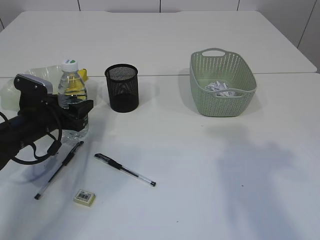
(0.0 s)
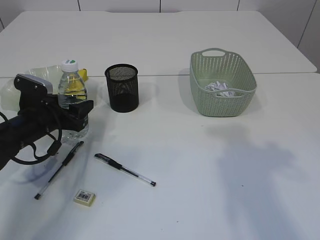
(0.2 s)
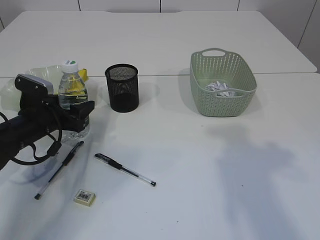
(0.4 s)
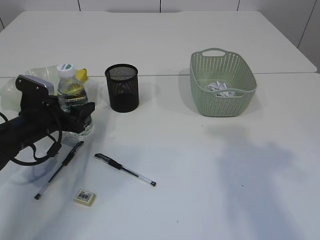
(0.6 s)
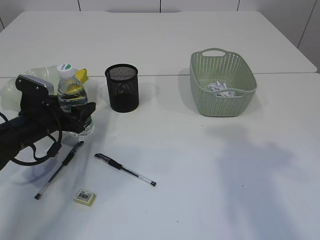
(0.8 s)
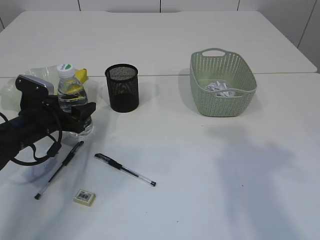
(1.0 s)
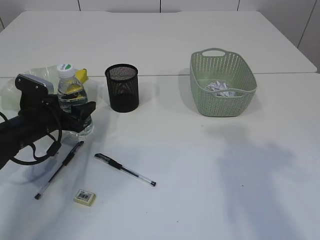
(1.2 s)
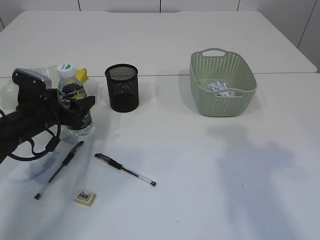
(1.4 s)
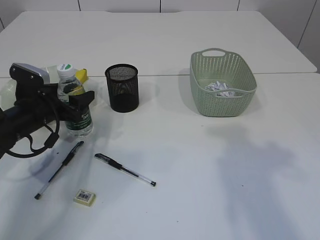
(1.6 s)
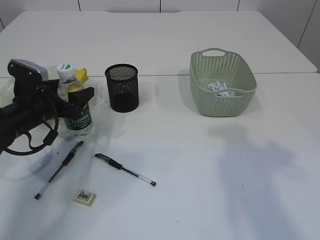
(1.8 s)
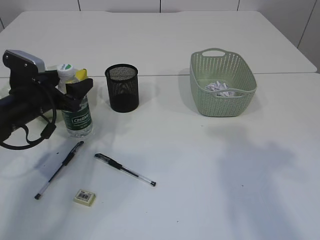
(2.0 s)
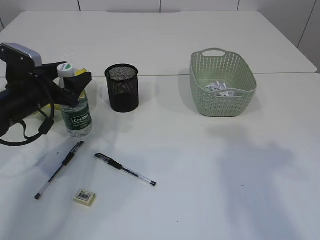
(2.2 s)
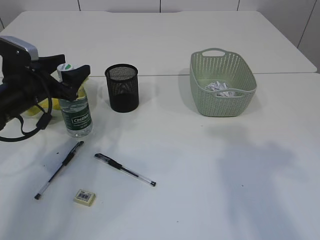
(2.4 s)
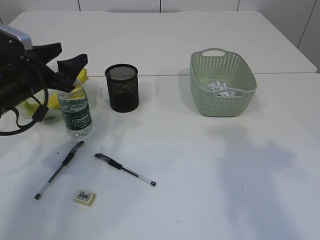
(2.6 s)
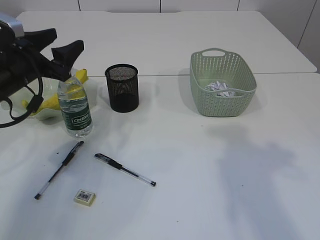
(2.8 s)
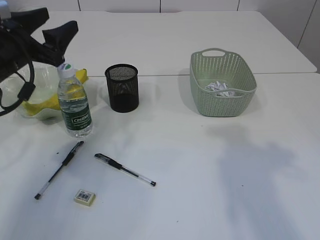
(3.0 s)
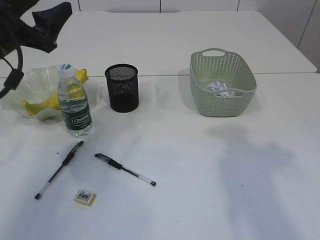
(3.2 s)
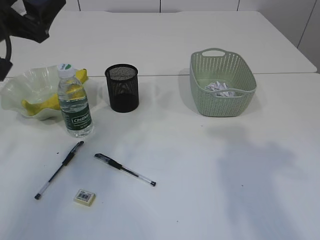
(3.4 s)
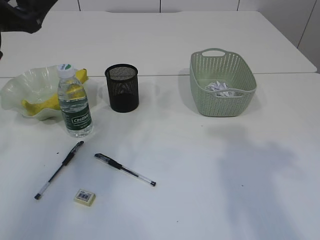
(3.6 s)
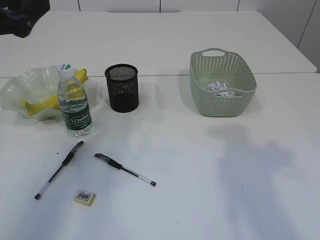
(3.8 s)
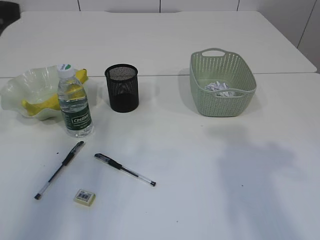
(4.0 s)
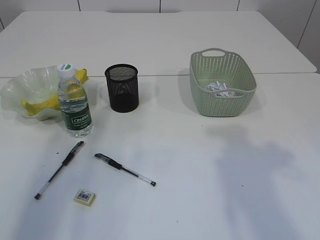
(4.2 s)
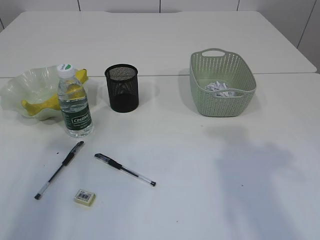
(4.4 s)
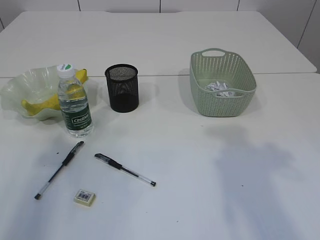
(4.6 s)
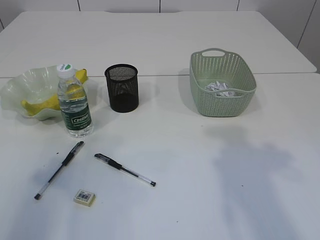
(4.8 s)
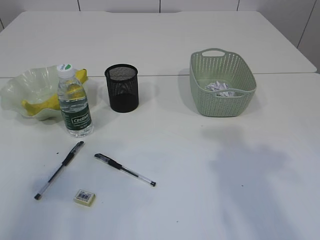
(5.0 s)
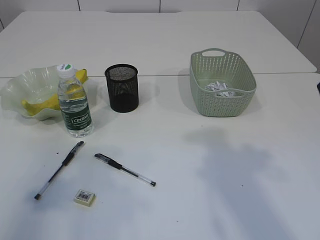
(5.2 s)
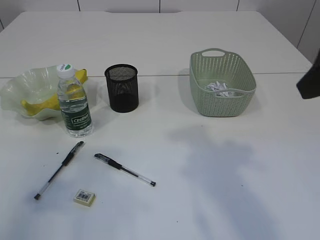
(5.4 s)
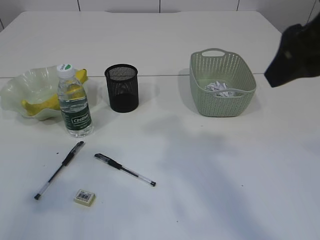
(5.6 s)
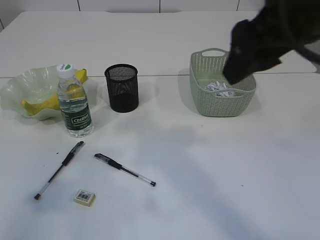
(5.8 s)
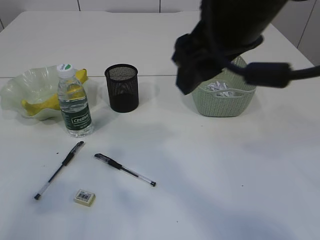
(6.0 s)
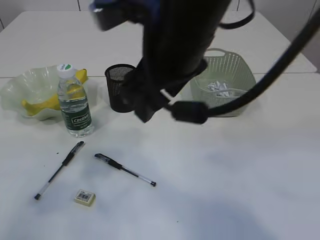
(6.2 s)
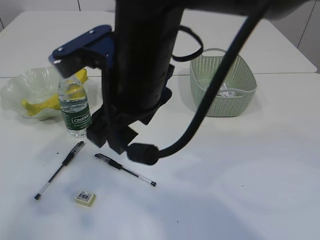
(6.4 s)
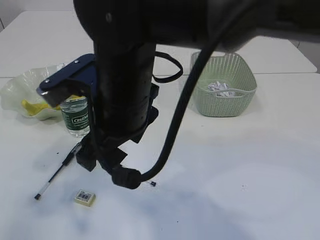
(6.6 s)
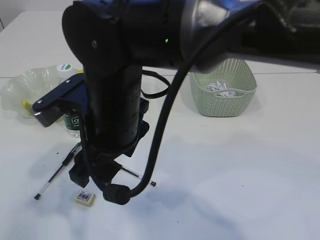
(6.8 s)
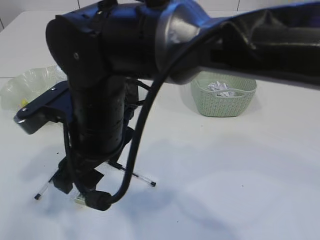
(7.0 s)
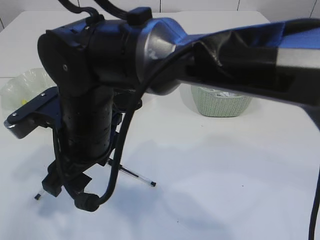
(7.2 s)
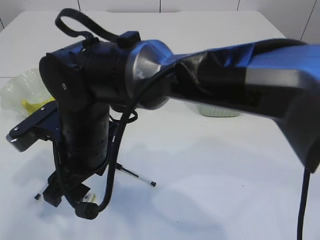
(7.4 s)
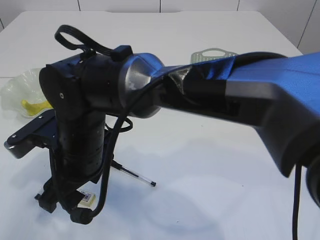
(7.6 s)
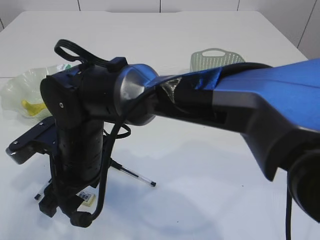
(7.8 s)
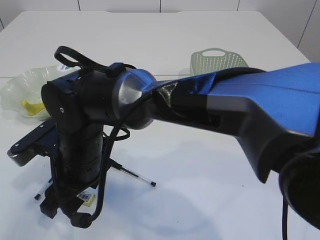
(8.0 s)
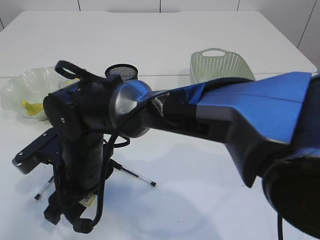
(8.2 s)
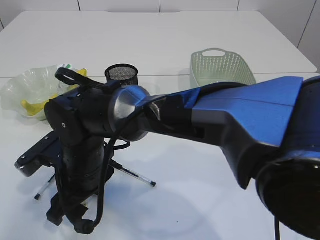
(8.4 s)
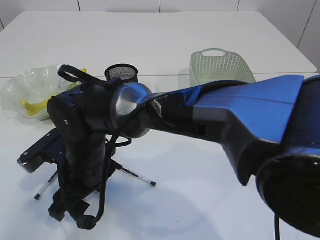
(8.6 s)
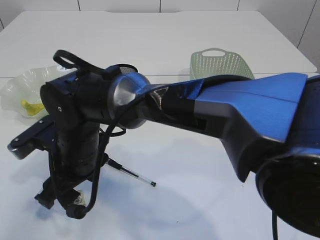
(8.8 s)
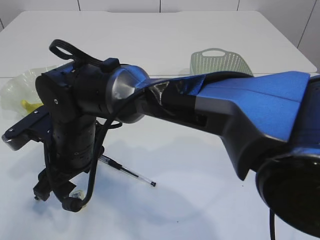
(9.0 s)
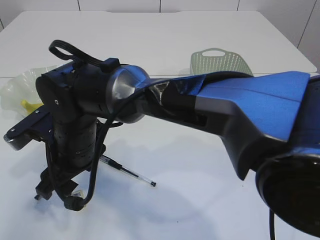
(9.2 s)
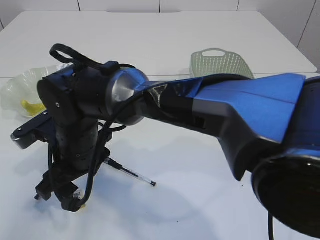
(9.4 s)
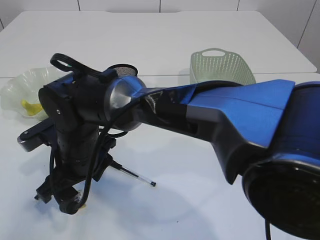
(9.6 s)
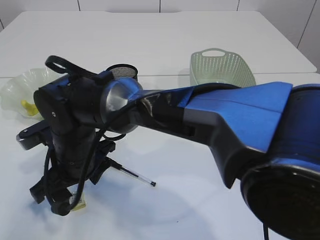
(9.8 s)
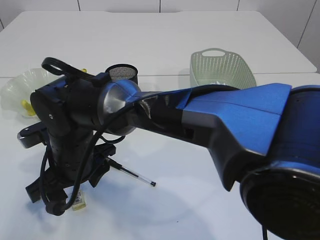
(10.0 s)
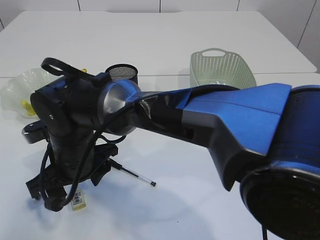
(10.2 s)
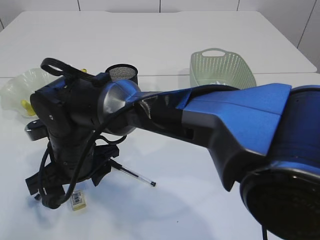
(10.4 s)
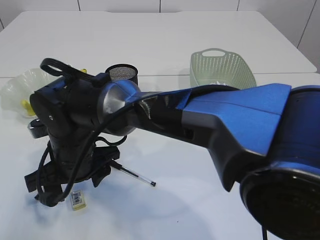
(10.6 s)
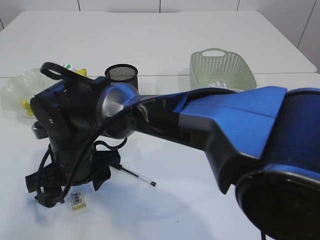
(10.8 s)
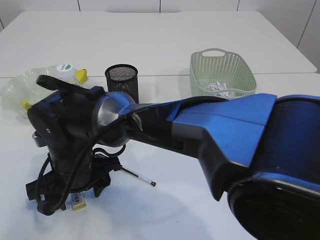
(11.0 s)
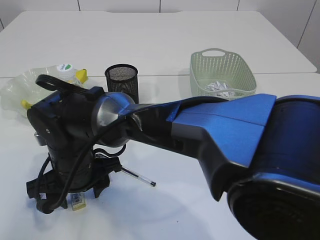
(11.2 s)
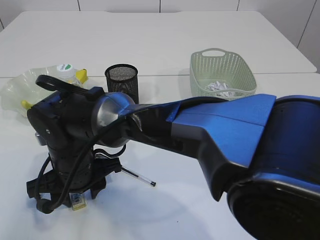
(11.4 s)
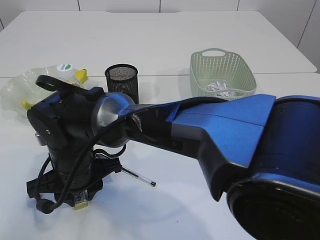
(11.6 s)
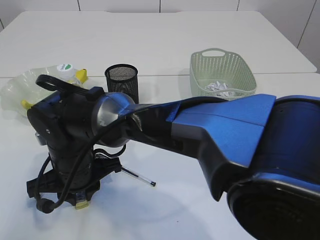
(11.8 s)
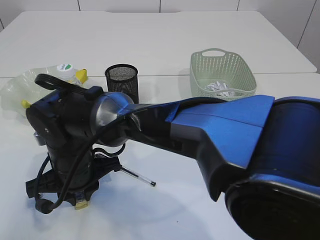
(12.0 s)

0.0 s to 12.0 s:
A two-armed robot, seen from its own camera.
Step, 0.0 to 2.6 s: Place the bottle.
0.0 to 1.6 s: The grippers make only small movements.
1.6 to 3.0 s: The left gripper travels upward by roughly 15 cm.
3.0 to 4.4 s: The left gripper heads backward, upward and to the left, covering about 20 cm.
4.4 to 6.0 s: The left gripper heads backward, covering approximately 5 cm. The right gripper shifts roughly 20 cm to the left.
6.0 to 7.6 s: The right gripper moves to the left and downward, approximately 25 cm.
10.4 to 12.0 s: The right gripper closes its fingers.

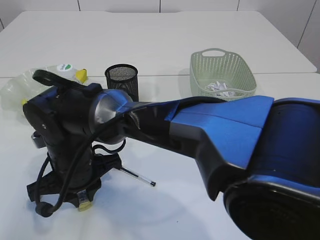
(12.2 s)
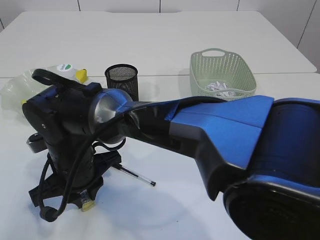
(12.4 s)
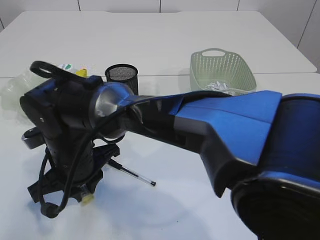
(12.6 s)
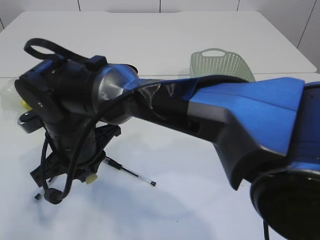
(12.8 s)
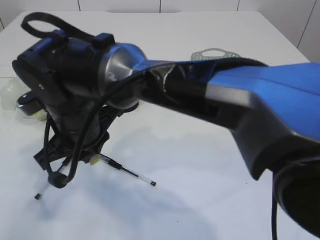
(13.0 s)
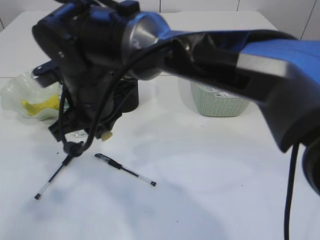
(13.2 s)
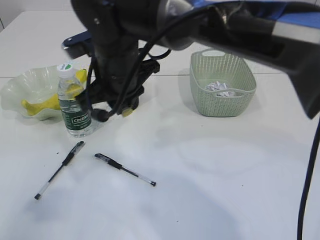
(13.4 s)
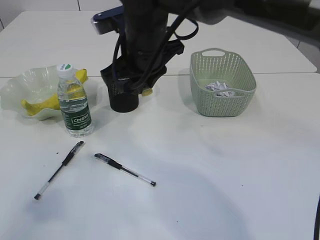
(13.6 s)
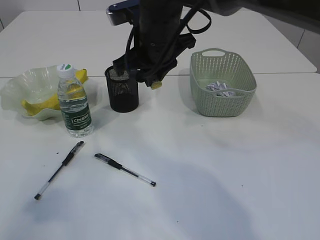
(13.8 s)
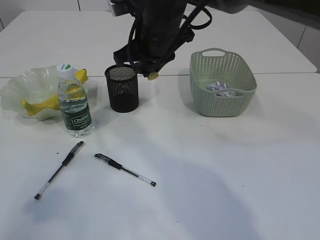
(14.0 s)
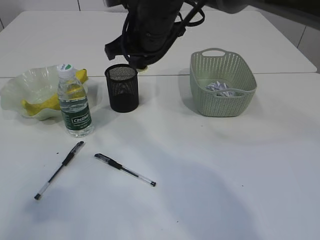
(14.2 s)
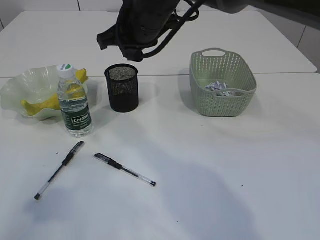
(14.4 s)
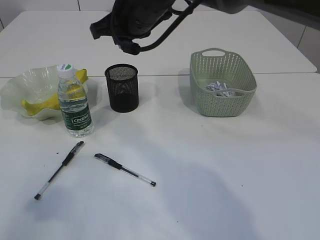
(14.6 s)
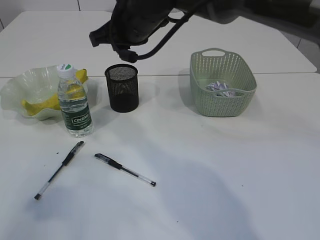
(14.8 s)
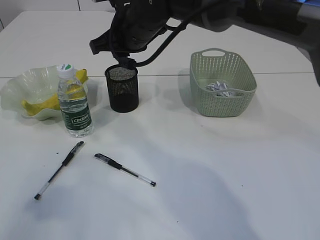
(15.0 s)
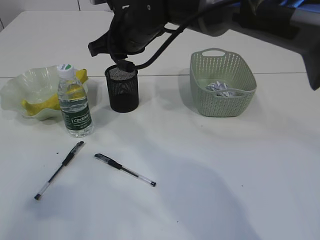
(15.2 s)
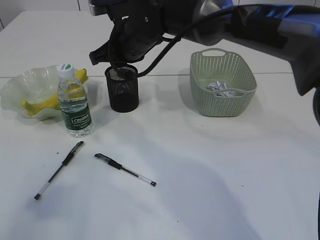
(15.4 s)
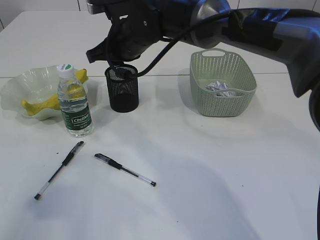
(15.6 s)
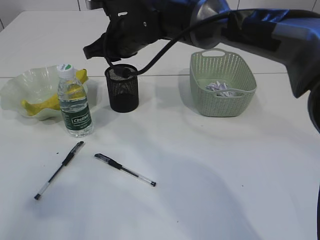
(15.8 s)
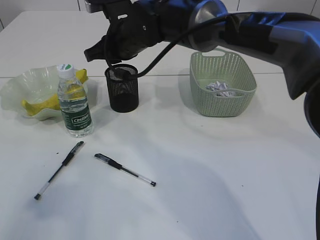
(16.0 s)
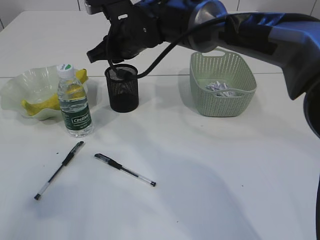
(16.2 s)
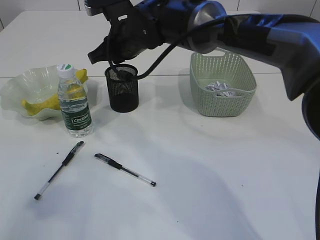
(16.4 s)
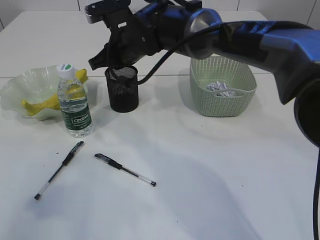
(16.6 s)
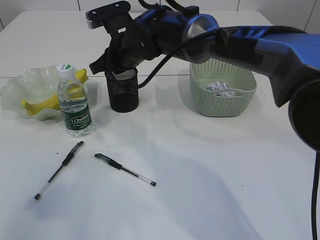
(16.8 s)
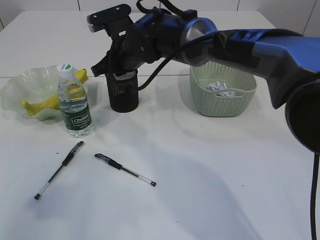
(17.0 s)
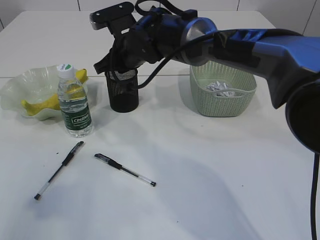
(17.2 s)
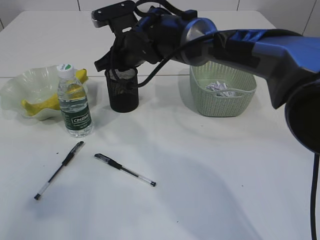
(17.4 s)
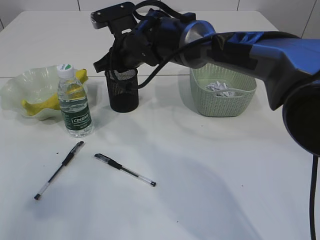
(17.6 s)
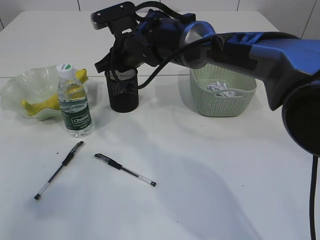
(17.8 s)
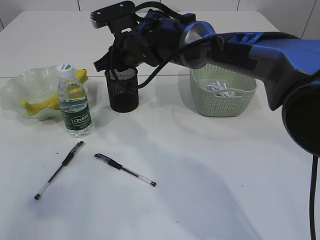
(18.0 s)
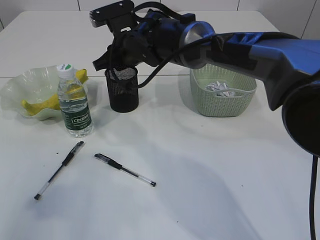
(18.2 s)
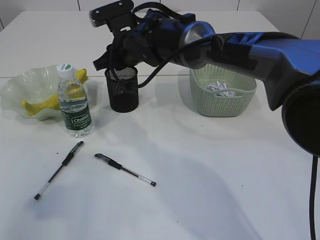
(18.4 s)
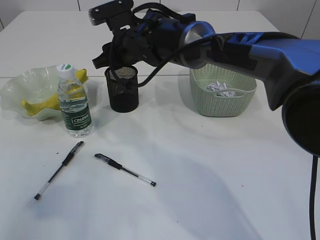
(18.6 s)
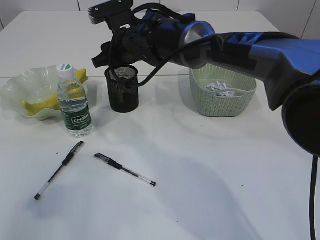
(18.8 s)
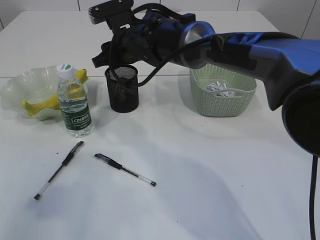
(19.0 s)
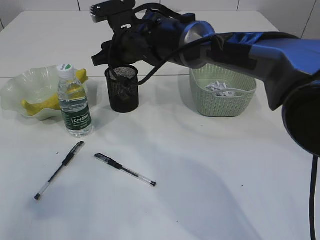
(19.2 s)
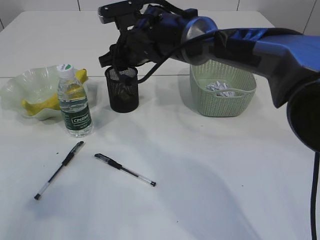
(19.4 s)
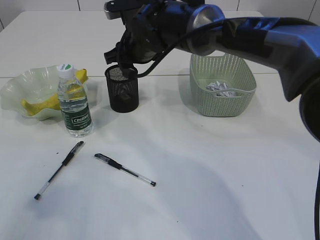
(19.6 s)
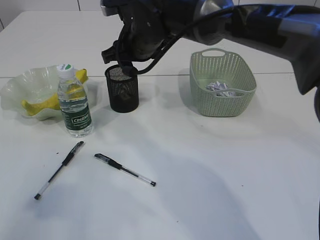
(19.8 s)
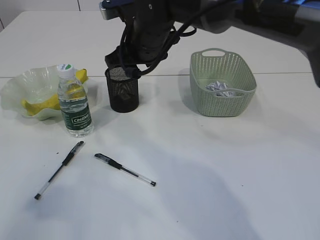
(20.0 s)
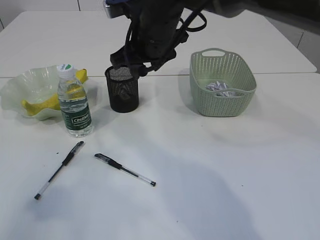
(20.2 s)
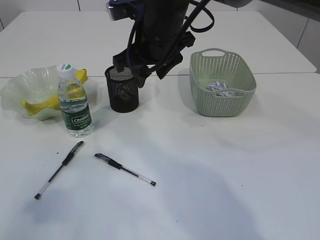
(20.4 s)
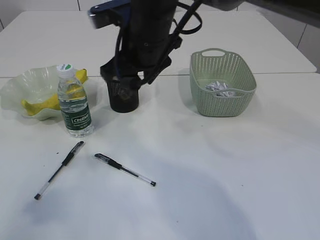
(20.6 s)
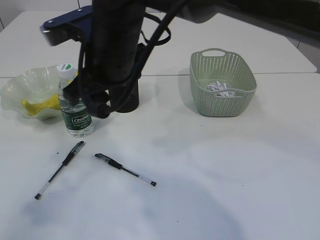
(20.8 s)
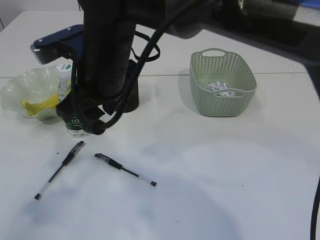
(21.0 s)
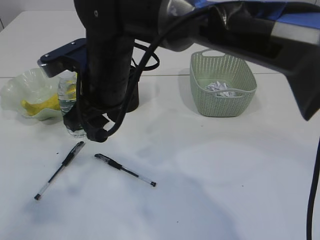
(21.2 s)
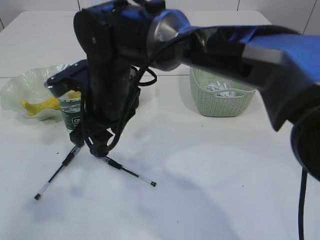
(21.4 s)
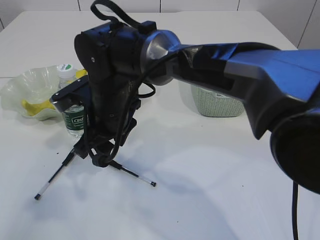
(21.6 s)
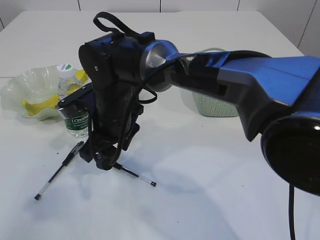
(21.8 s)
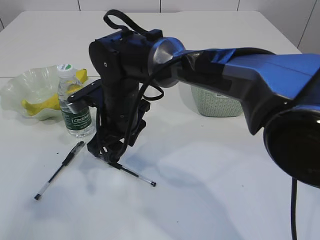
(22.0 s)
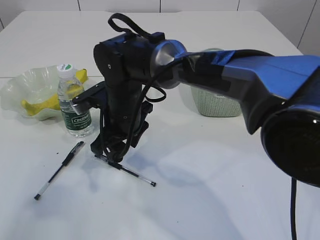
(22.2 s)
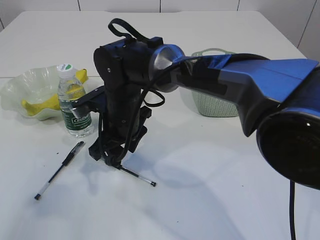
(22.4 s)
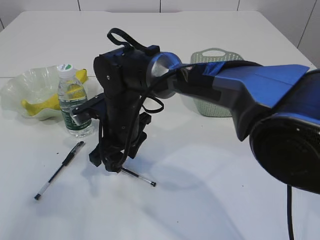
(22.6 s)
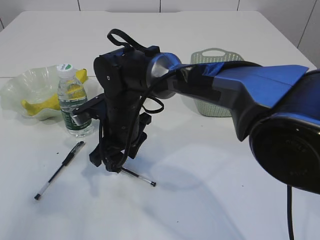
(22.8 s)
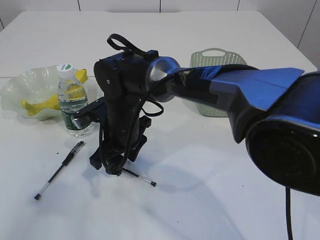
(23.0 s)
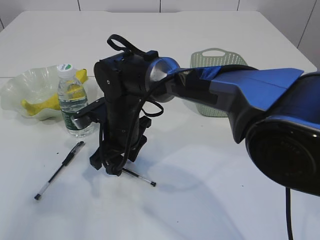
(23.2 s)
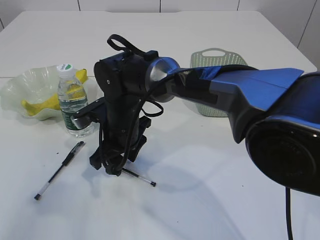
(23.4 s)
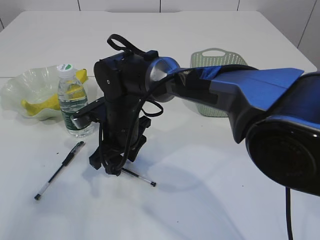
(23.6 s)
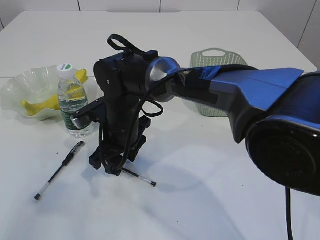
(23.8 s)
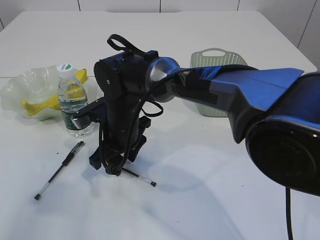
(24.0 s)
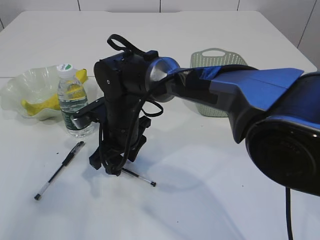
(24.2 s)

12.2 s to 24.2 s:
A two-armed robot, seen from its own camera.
Step, 13.0 to 19.2 s: Place the eraser into the pen holder.
12.2 to 13.8 s: The right gripper travels upward, to the right and forward by roughly 20 cm.
13.8 to 15.2 s: The right gripper shifts by about 5 cm.
15.2 to 18.2 s: The grippers move only a little.
18.2 to 19.8 s: The right gripper opens.
19.8 to 21.2 s: The right gripper is displaced backward and to the left by about 10 cm.
21.2 to 22.6 s: The right gripper goes roughly 10 cm downward.
22.6 to 24.2 s: Neither gripper changes place.
